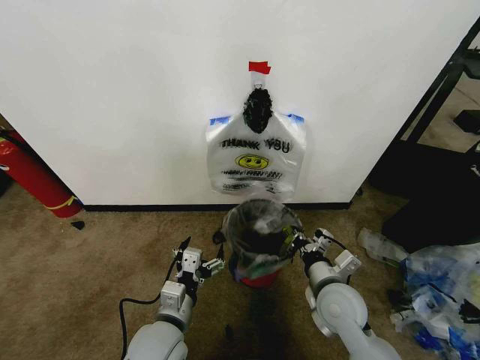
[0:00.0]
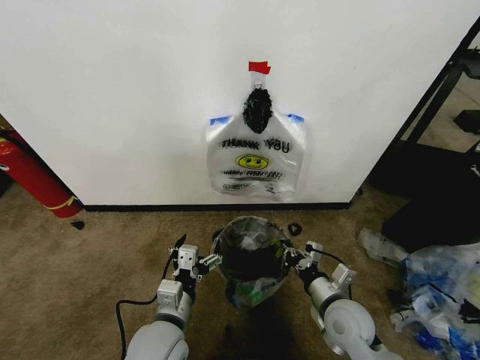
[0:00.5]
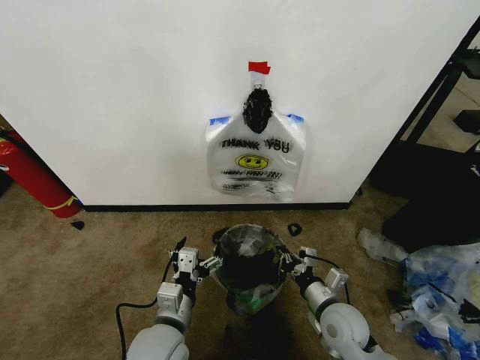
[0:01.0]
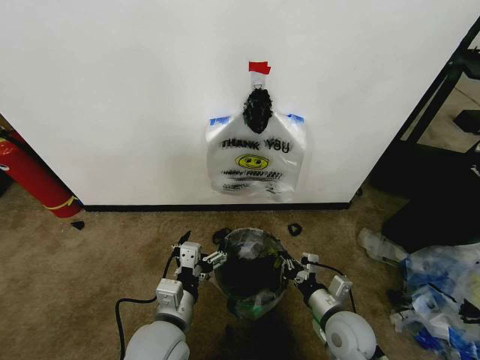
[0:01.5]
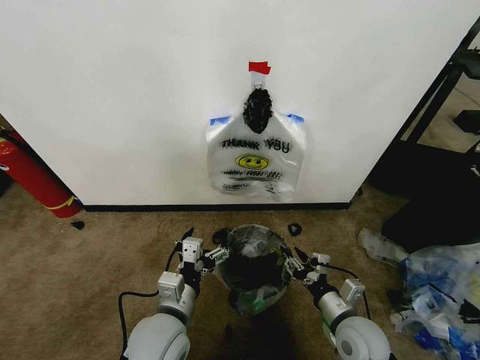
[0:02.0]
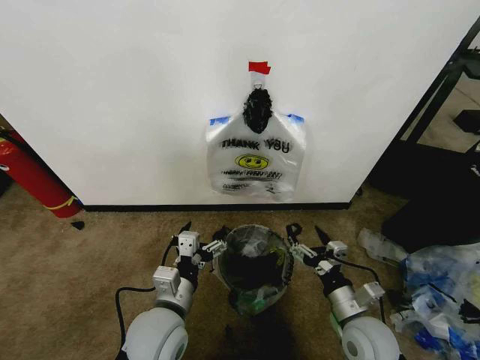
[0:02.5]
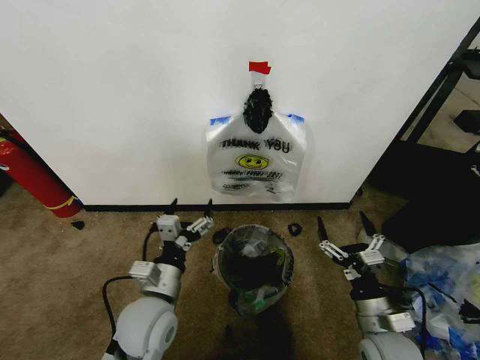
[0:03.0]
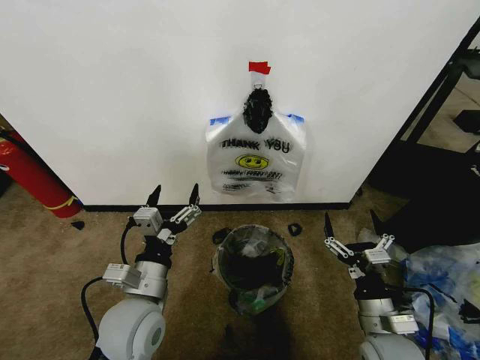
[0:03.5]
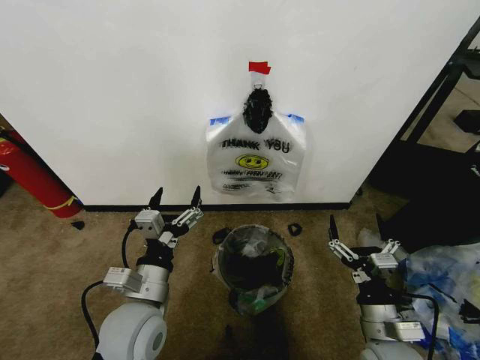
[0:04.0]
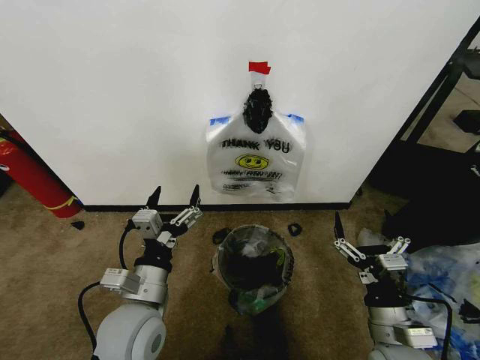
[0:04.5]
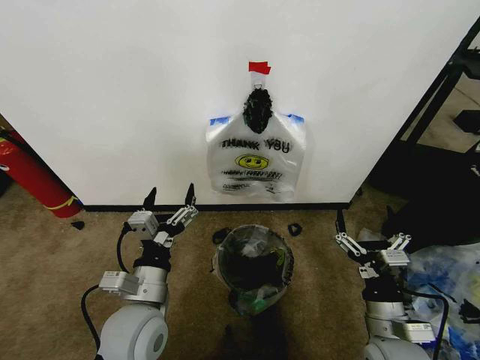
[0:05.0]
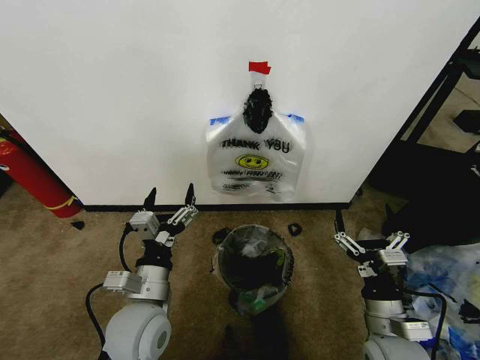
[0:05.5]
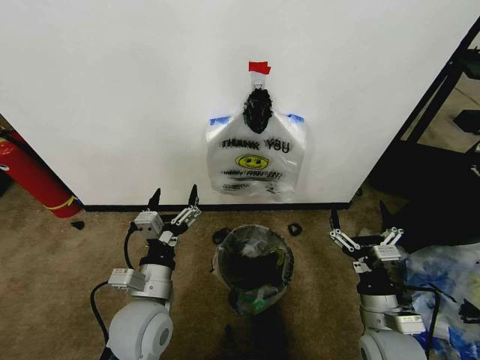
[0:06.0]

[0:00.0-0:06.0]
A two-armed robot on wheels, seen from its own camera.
Task of the whole recording: Pick up the garbage bag from the wall and place it over the trash bin.
0:00.0 to 0:02.0: The right gripper moves backward, roughly 5 cm, and opens.
0:02.0 to 0:04.0: The right gripper shifts by approximately 5 cm, and opens; the left gripper moves roughly 5 cm.
0:04.0 to 0:06.0: The grippers move only a little.
